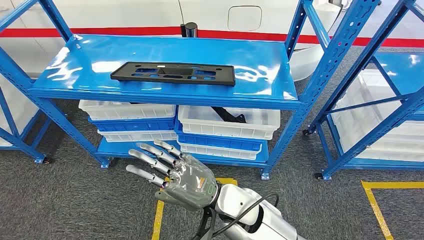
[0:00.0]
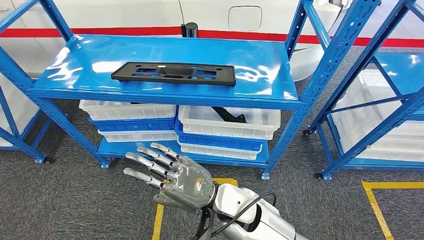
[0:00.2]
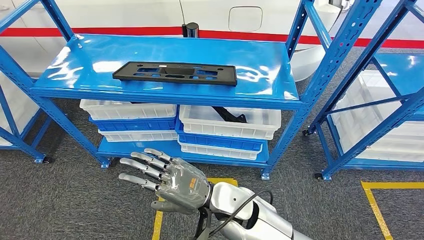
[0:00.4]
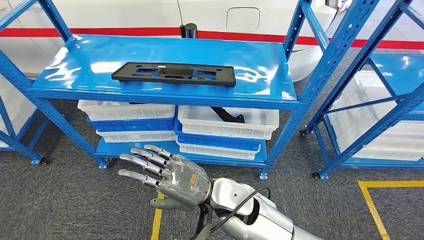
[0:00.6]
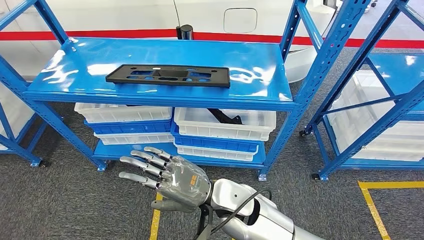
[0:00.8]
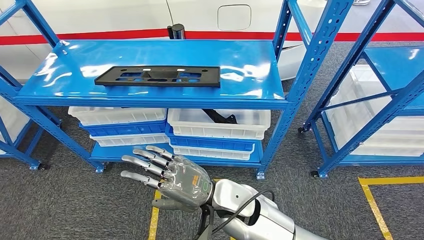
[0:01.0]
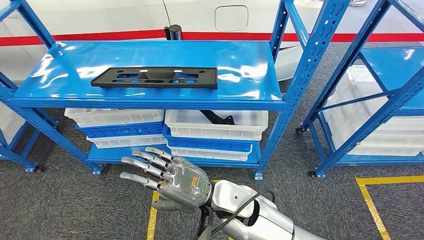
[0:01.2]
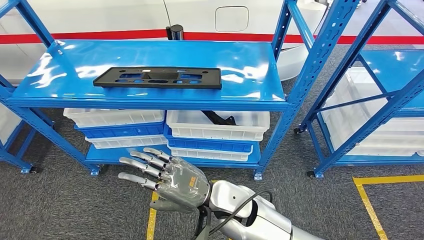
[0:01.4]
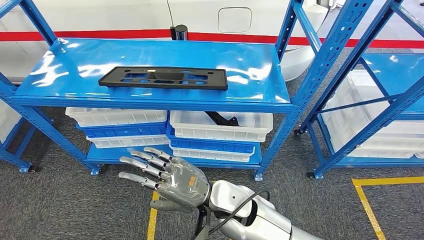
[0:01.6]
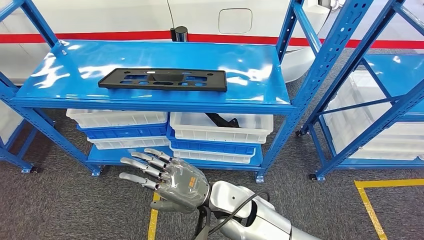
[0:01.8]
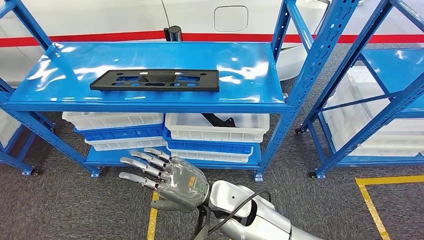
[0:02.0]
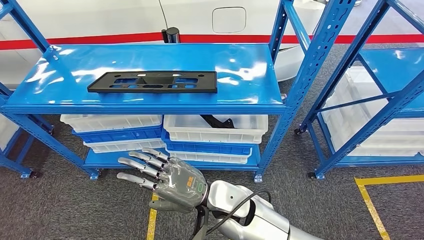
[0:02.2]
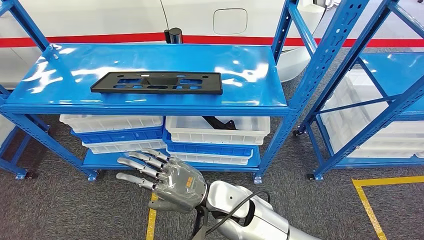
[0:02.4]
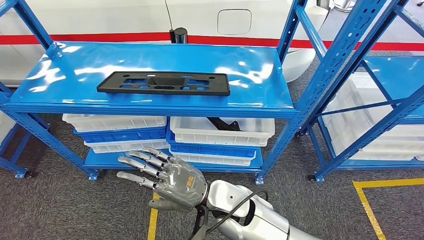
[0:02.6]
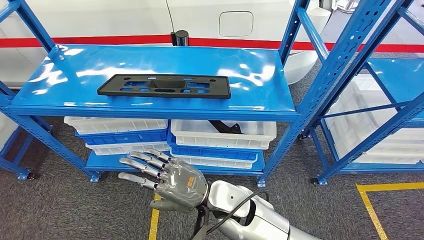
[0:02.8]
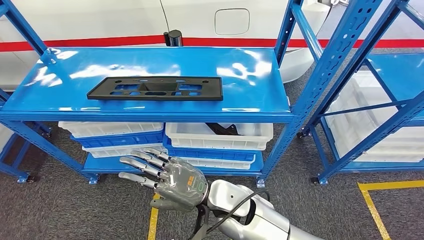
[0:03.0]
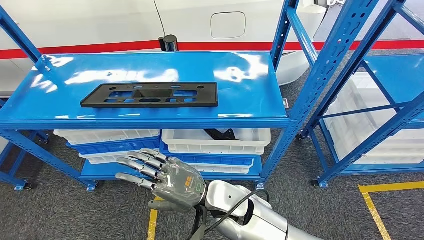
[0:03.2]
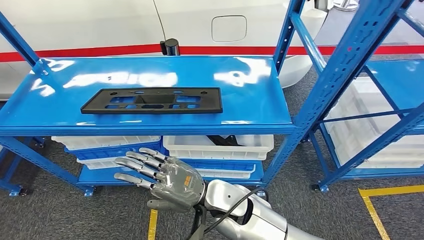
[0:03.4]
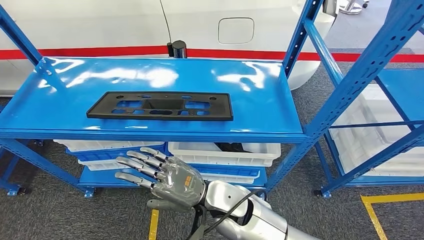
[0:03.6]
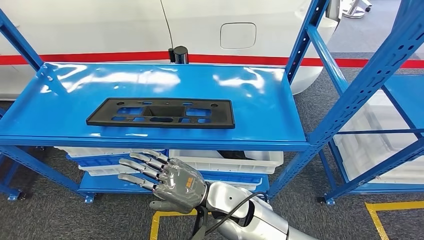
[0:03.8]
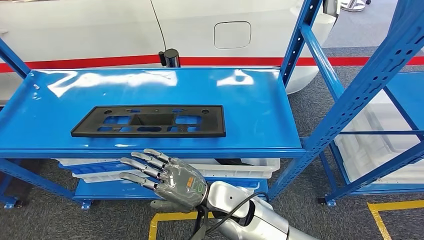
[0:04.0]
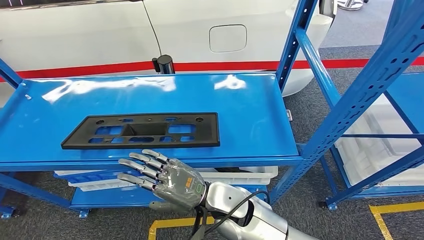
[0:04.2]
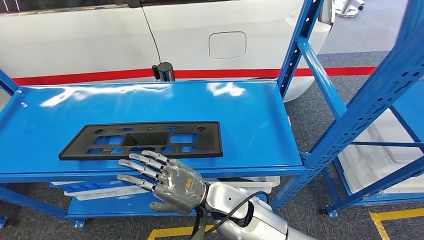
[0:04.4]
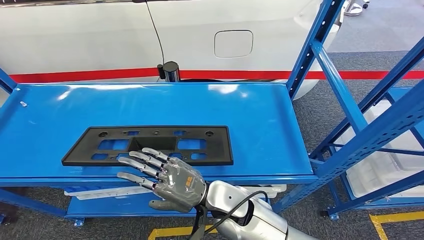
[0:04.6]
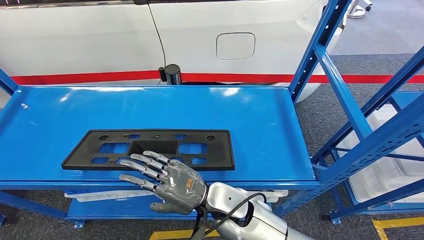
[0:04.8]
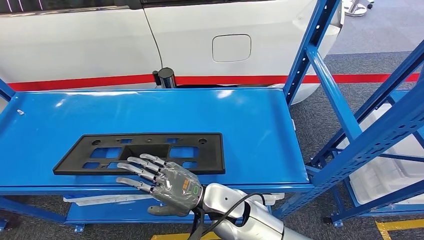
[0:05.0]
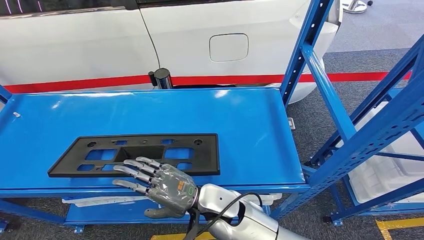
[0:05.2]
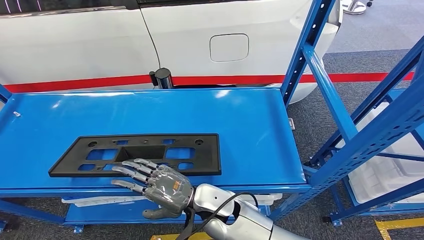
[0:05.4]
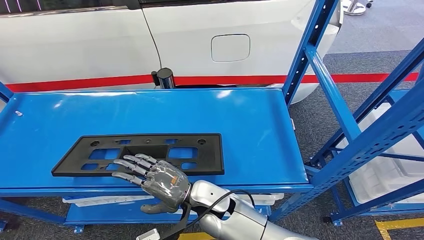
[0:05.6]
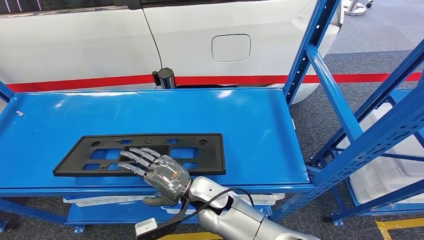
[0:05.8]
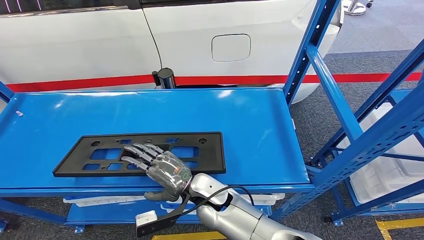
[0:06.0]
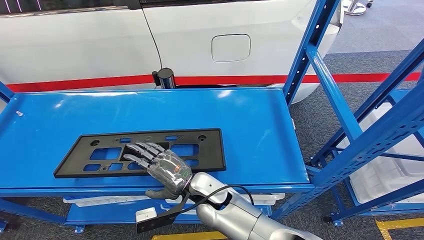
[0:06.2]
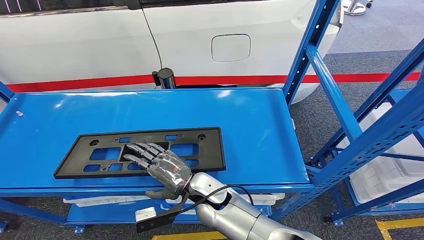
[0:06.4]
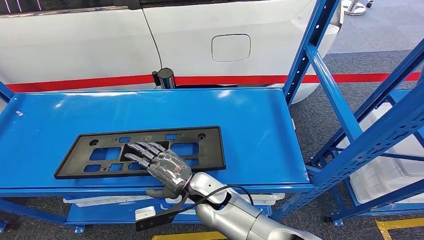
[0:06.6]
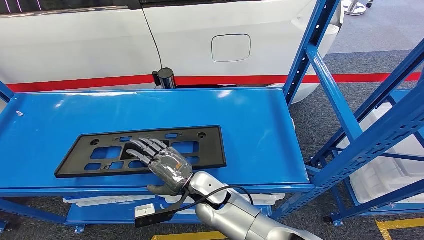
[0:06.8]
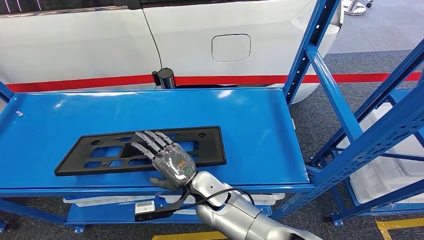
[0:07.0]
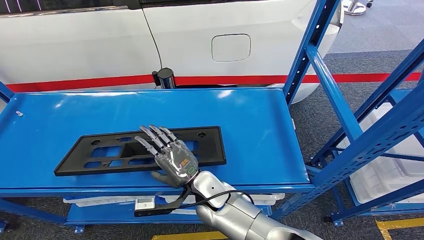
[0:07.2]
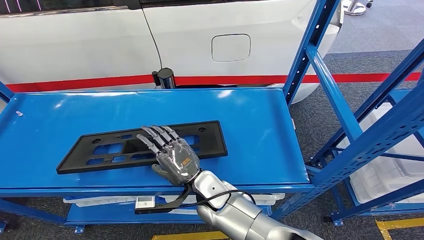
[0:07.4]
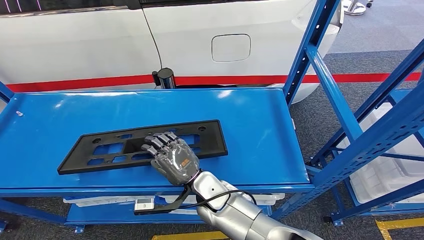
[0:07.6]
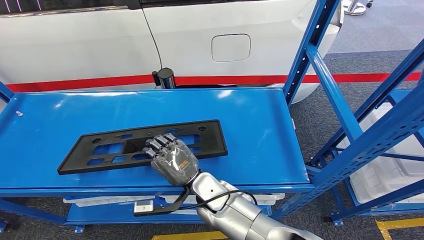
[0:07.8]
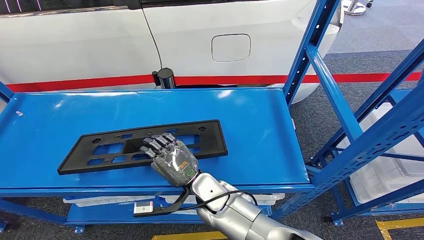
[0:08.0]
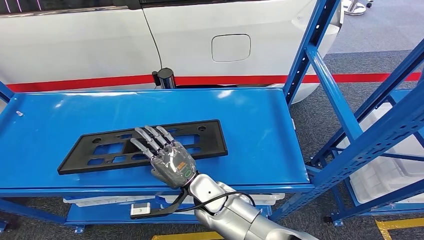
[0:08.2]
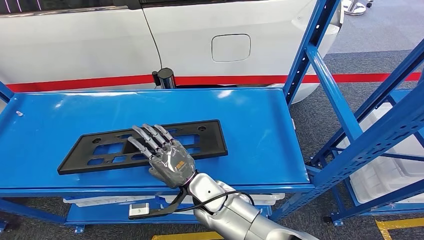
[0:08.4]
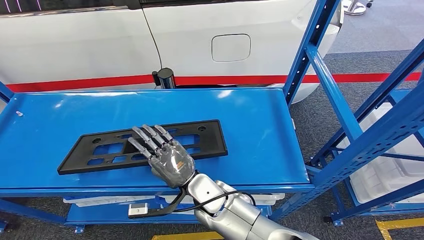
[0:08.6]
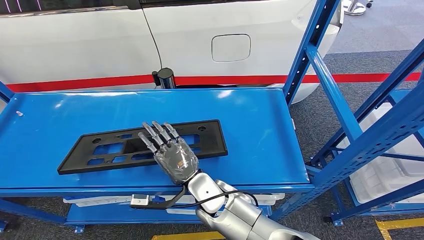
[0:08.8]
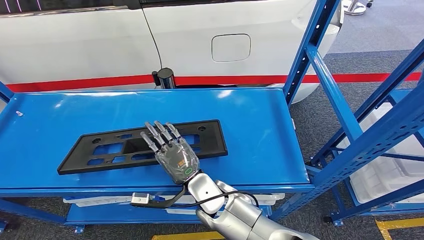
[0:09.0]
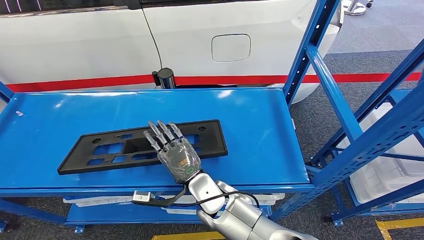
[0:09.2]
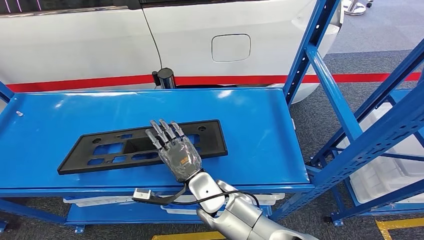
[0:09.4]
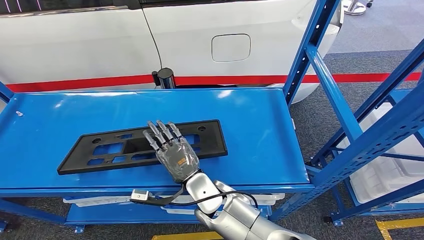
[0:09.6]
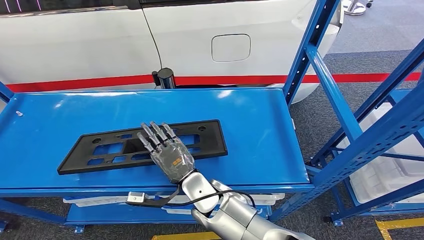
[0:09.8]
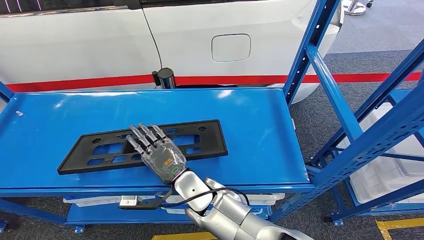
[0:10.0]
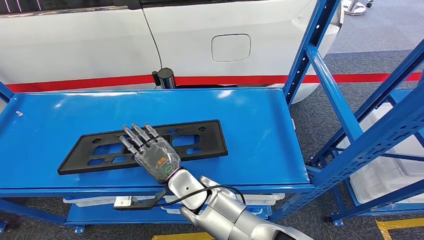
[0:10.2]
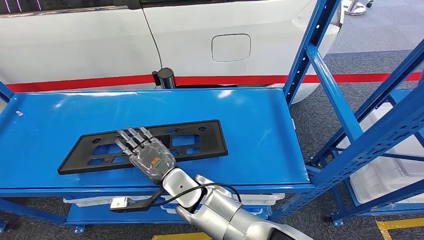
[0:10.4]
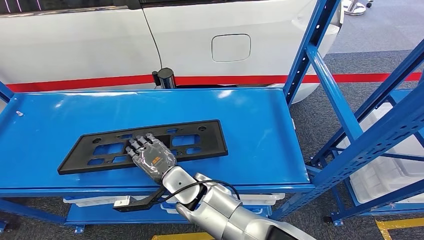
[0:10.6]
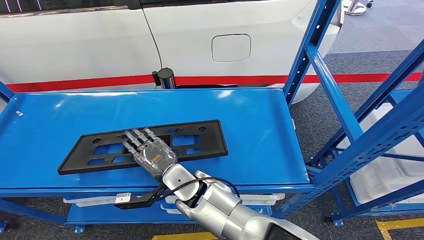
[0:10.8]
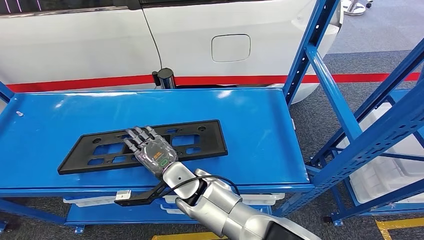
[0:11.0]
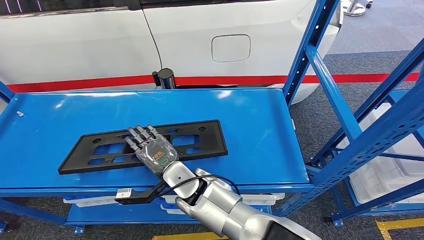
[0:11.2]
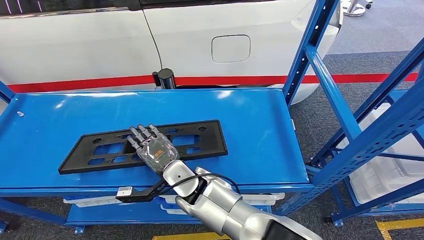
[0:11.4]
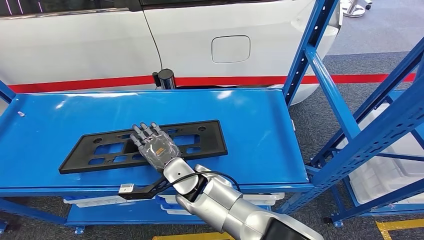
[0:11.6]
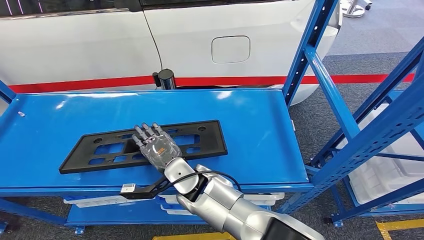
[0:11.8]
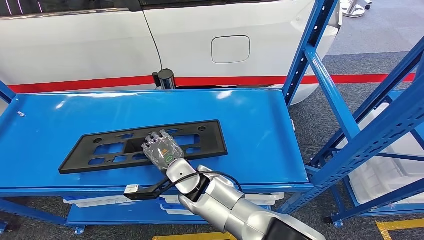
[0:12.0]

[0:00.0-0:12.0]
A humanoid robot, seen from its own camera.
0:07.6 to 0:09.0: There are only small adjustments of the hands.
0:09.0 to 0:10.4: The right hand ends up roughly 5 cm from where it was.
0:10.4 to 0:12.0: The hands stay close to where they were, moving slightly.

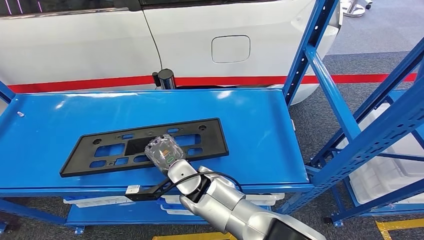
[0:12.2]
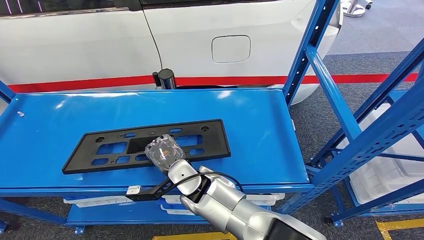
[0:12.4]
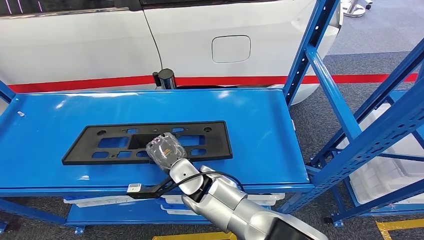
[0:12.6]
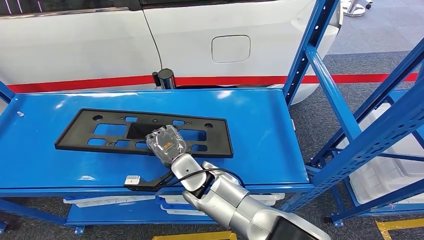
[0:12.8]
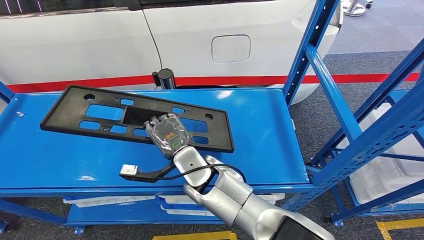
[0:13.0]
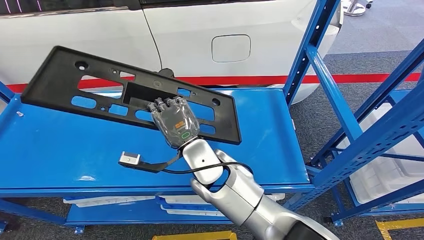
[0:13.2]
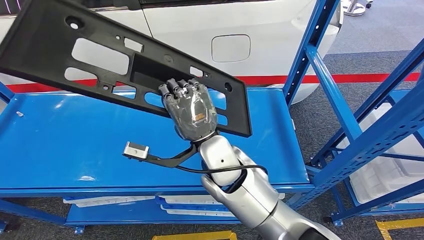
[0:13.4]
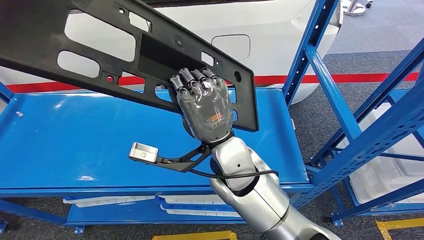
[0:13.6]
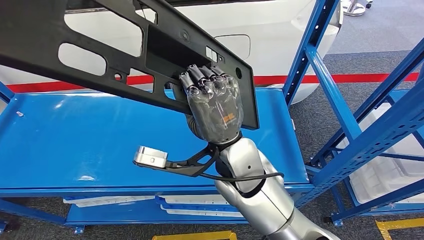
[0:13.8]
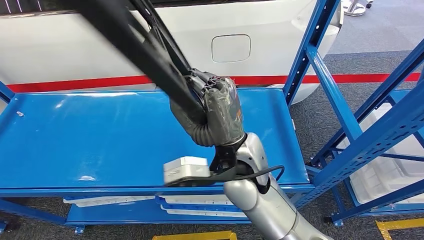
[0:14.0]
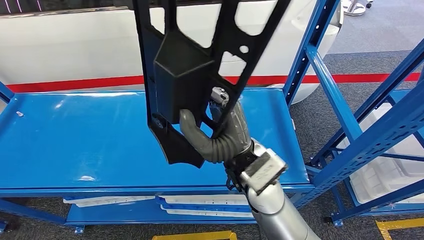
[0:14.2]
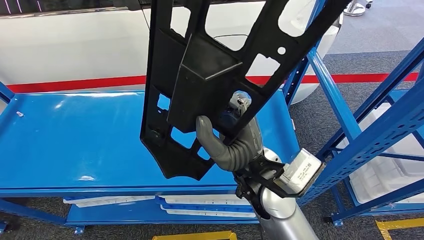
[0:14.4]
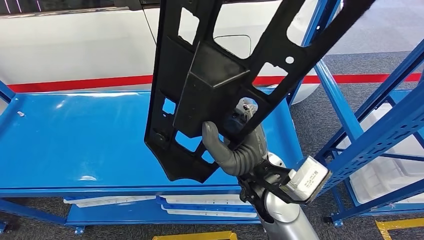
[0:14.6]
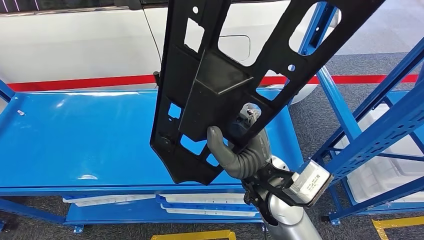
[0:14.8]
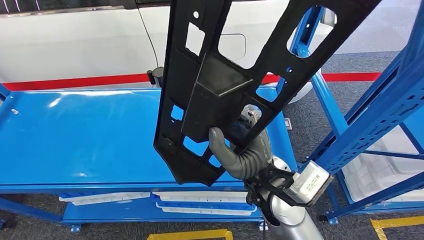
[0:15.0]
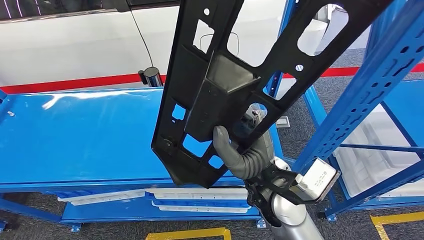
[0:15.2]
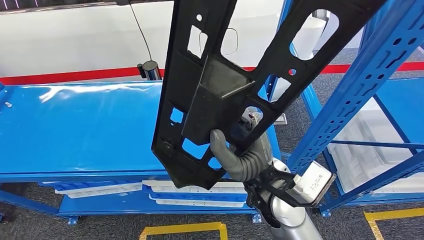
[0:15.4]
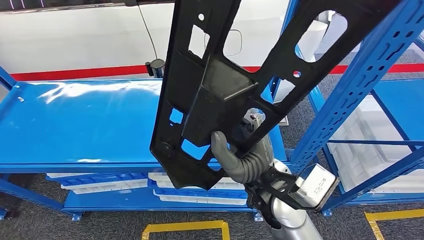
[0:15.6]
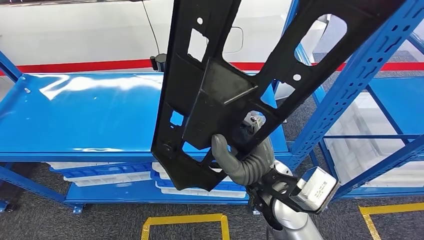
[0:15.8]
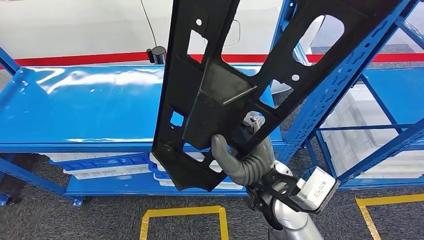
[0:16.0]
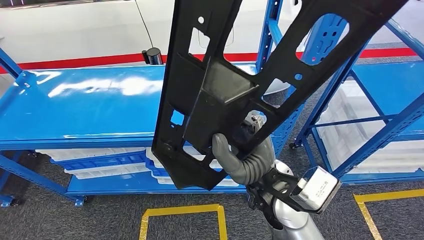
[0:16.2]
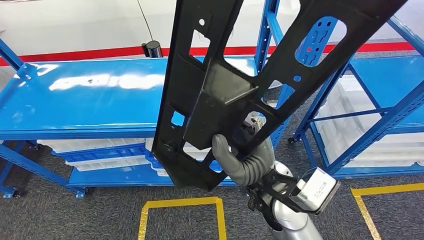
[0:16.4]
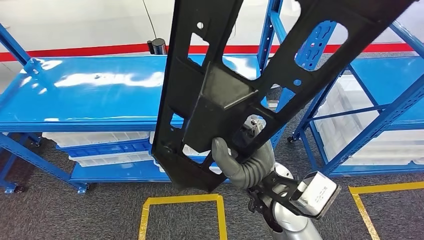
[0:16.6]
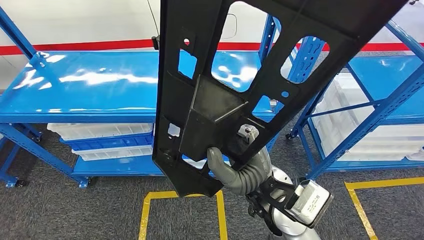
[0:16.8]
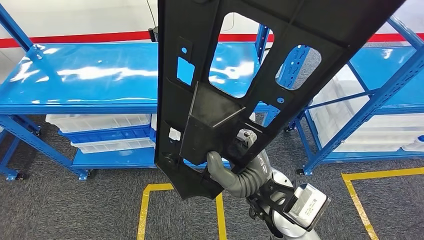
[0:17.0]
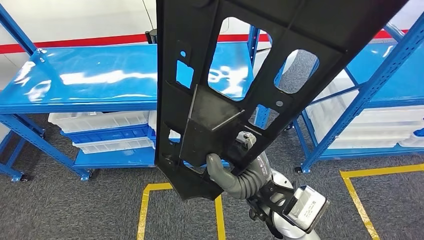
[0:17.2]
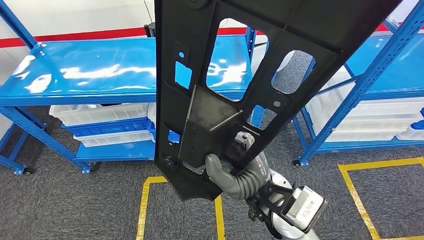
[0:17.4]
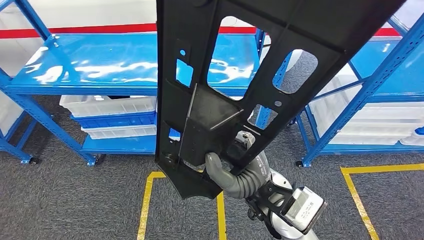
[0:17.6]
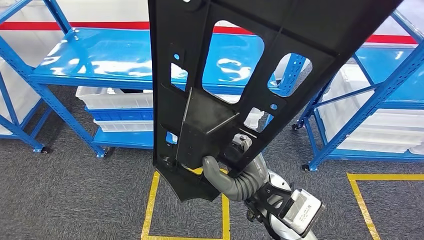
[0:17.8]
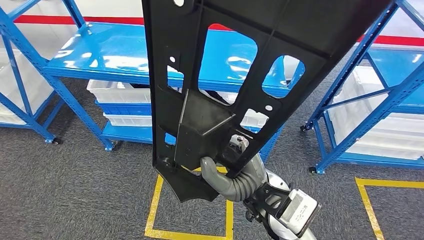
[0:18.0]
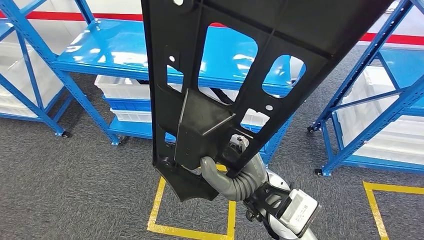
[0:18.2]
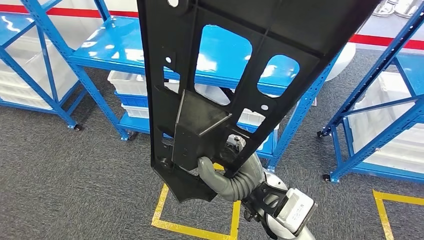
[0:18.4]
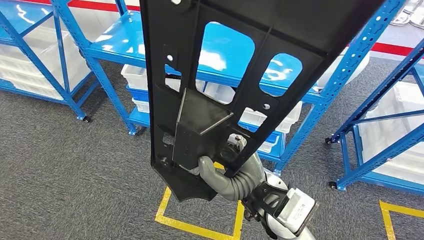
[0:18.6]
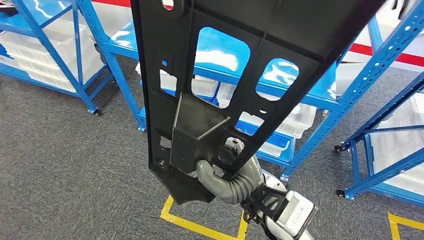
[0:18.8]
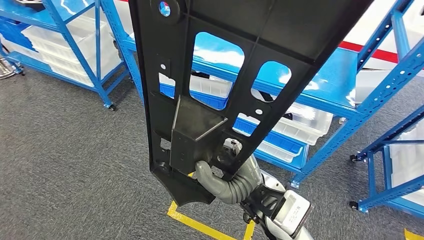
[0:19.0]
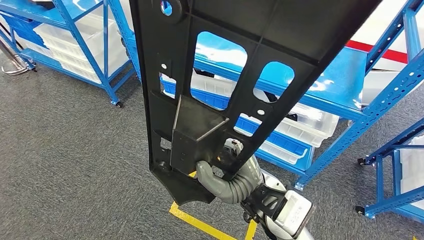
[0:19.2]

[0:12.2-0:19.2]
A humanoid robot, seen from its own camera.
Step, 0:12.2 to 0:17.8: Pick up the large material from the shelf.
